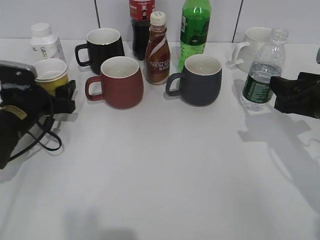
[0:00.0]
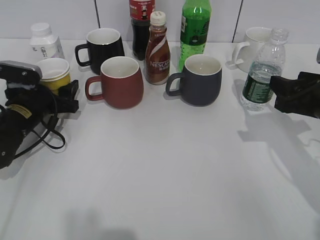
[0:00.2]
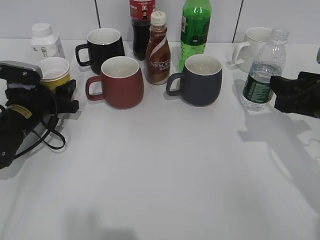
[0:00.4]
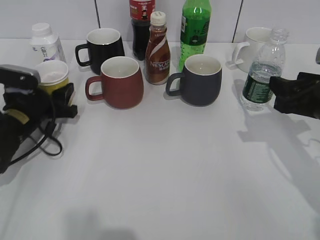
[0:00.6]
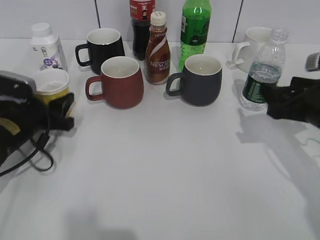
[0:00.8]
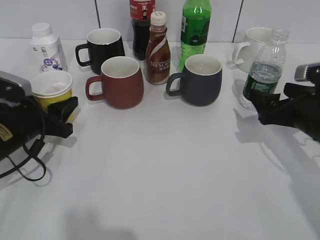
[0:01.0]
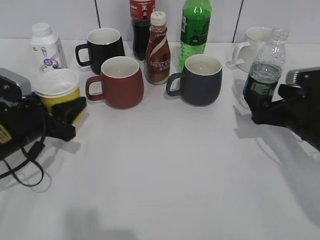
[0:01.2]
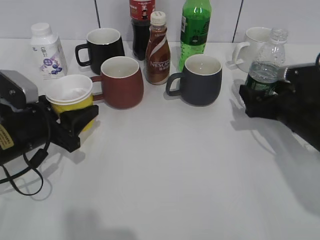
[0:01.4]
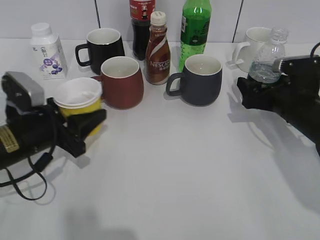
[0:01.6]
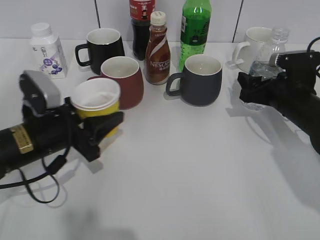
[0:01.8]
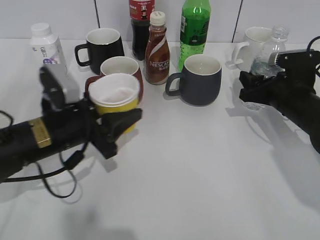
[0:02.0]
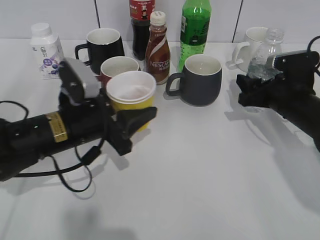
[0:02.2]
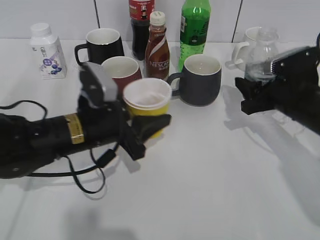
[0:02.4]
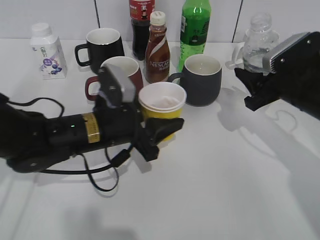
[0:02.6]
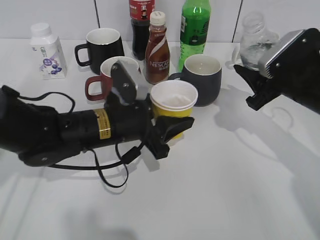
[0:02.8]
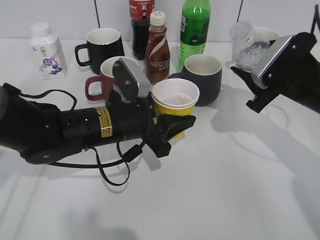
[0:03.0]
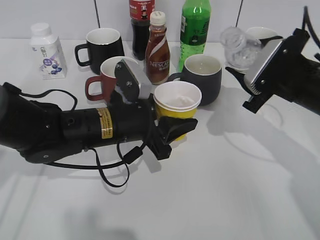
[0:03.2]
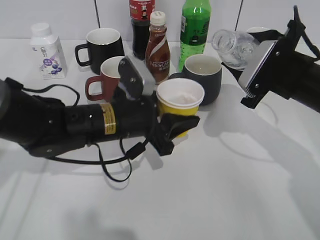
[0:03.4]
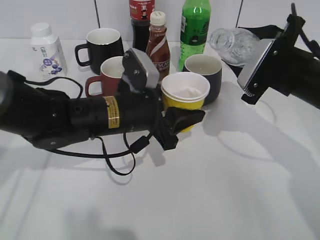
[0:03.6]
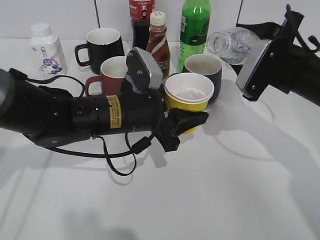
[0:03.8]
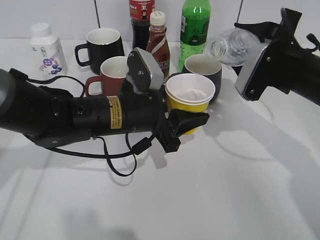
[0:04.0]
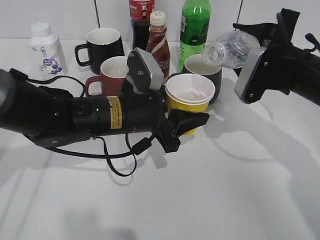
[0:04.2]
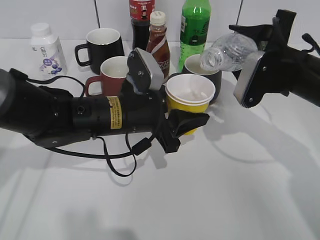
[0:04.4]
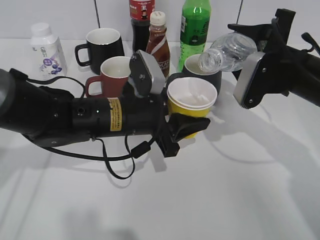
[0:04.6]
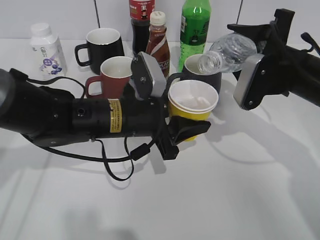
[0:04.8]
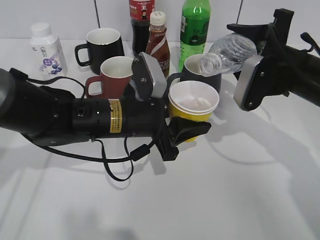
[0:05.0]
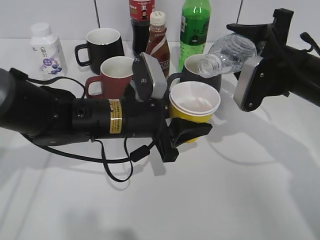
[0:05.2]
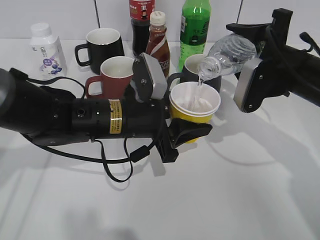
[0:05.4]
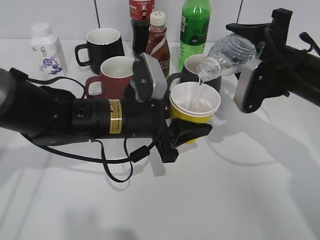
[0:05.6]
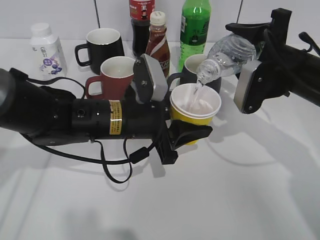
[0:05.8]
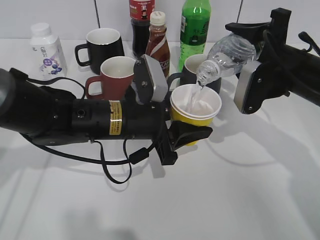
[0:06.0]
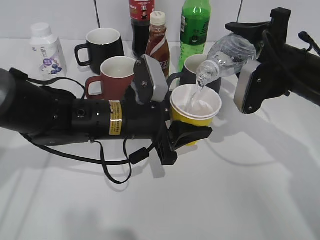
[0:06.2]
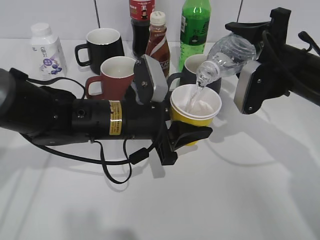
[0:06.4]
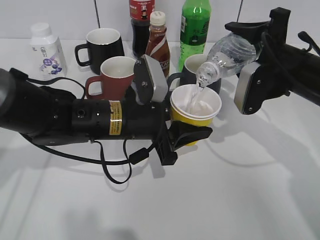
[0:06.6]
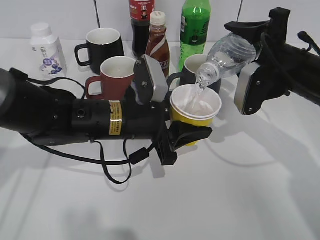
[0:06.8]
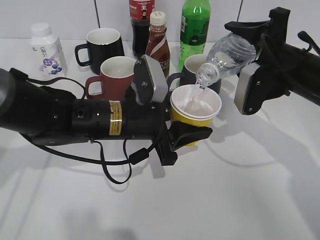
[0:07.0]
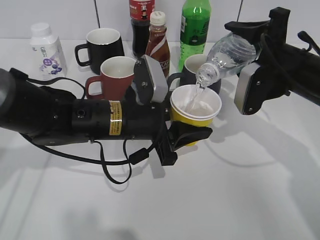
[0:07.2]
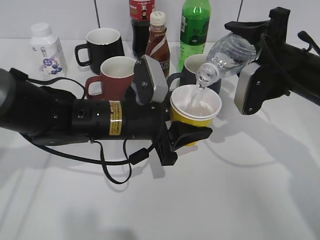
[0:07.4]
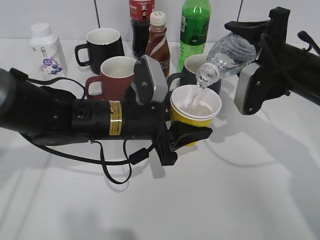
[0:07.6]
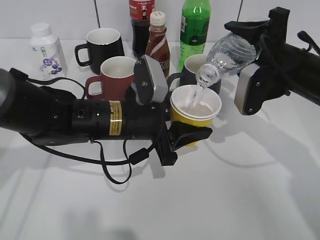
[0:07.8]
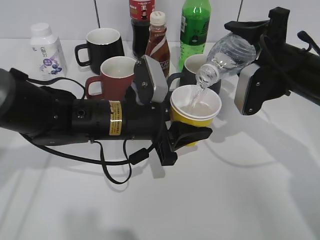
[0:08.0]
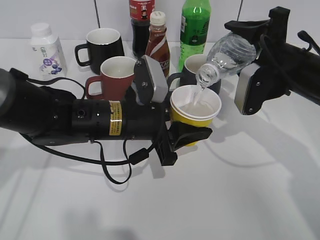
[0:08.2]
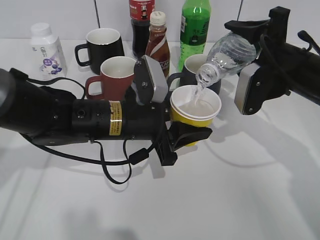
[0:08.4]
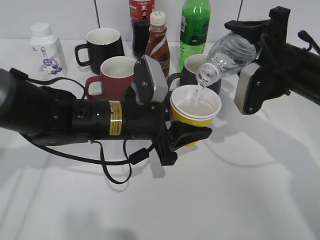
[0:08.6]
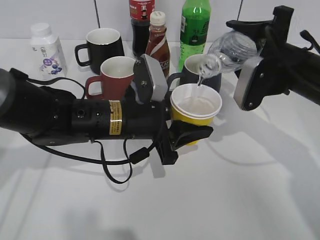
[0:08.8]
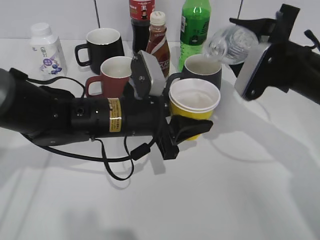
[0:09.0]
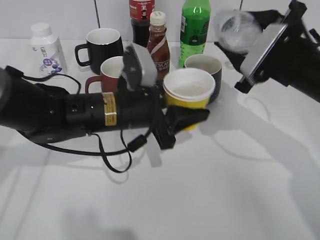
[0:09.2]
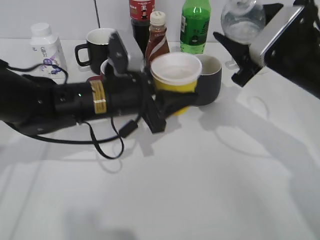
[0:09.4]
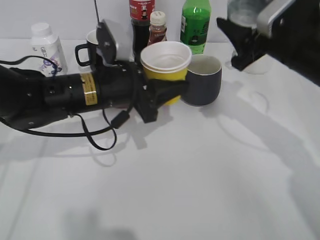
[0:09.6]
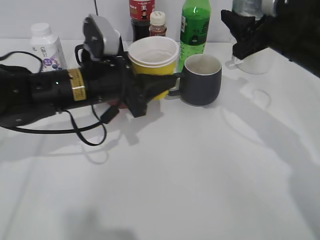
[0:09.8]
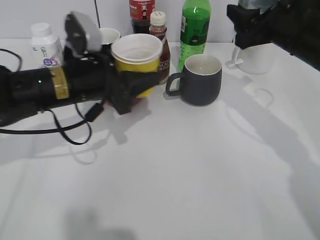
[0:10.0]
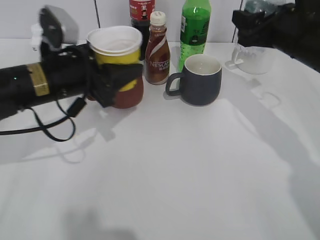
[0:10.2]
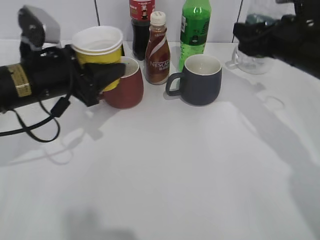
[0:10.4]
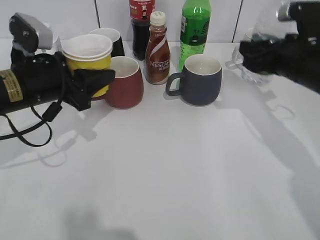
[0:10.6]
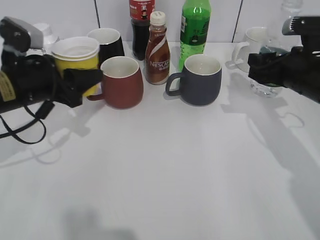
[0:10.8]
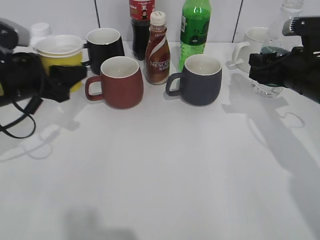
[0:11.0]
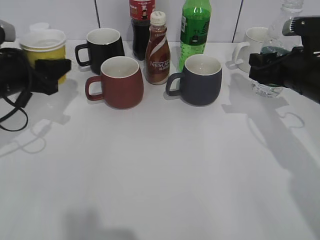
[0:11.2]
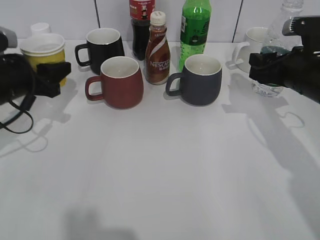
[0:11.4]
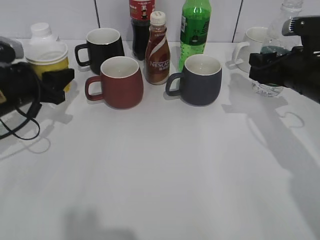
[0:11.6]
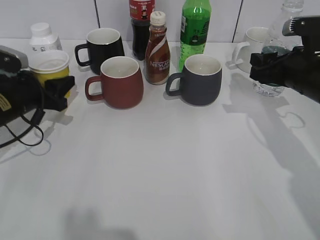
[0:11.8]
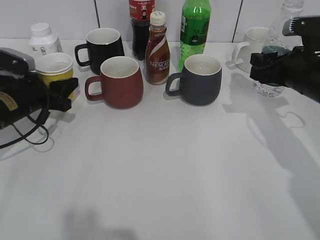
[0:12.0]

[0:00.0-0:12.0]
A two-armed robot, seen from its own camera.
Step, 0:00.6 to 0:02.0: Grasp the bottle with water with right gripper.
Step, 0:02.2 to 0:09.4: Pour the water from bottle to cup with right gripper.
0:00.0 to 0:01.6: The right gripper heads forward and downward, covering approximately 10 cm, and opens. Meanwhile the left gripper goes about 10 cm backward, and closes up.
0:01.6 to 0:03.0: The left gripper moves to the right, approximately 15 cm. The right gripper heads upward, covering approximately 5 cm, and closes.
0:04.4 to 0:06.0: There are only small adjustments of the grippers.
0:06.0 to 0:07.6: Both grippers stay put.
0:09.0 to 0:10.4: The left gripper shifts some 15 cm to the left.
0:10.4 to 0:12.0: The left gripper moves downward, to the left and forward, roughly 15 cm.

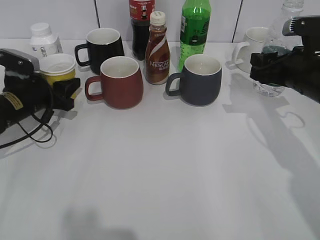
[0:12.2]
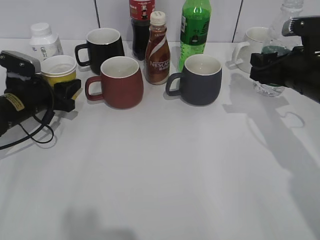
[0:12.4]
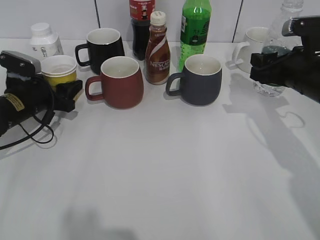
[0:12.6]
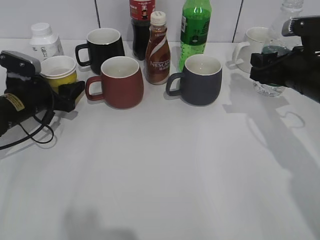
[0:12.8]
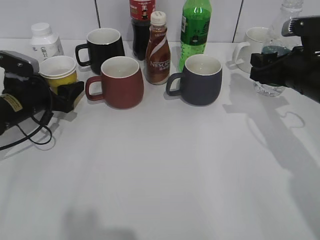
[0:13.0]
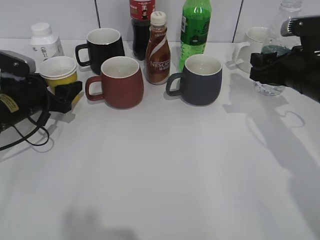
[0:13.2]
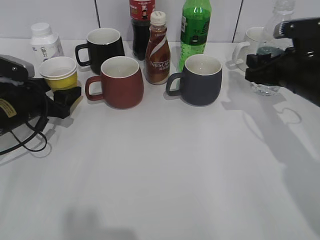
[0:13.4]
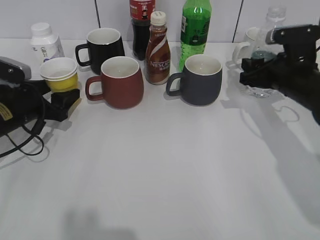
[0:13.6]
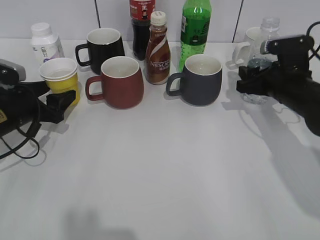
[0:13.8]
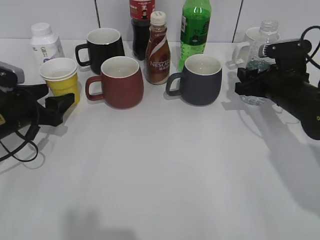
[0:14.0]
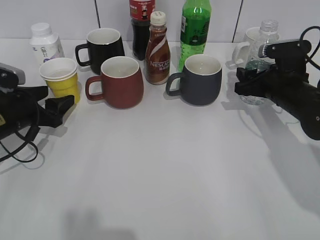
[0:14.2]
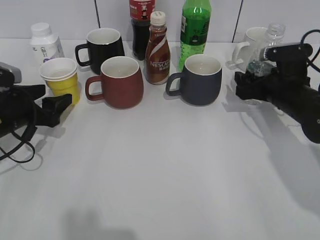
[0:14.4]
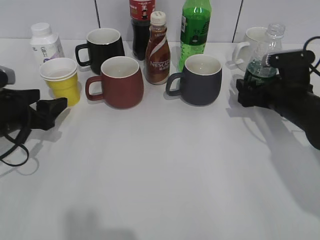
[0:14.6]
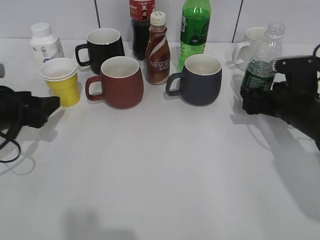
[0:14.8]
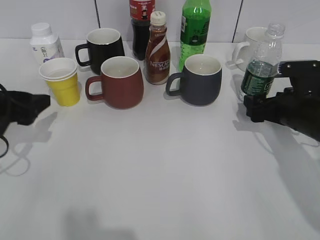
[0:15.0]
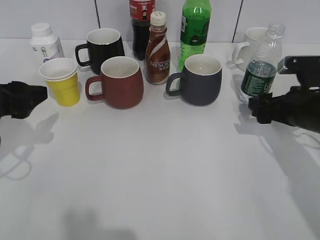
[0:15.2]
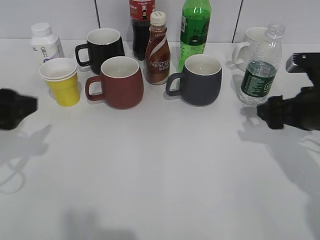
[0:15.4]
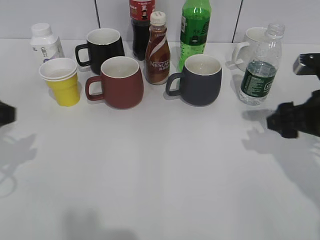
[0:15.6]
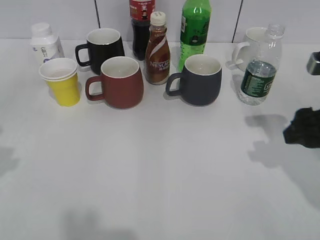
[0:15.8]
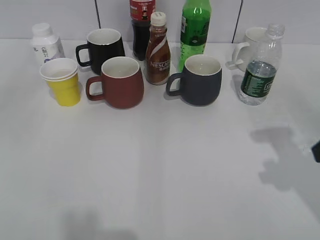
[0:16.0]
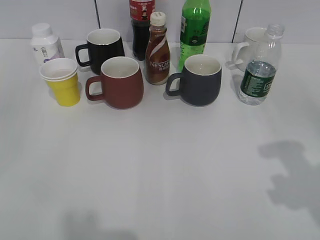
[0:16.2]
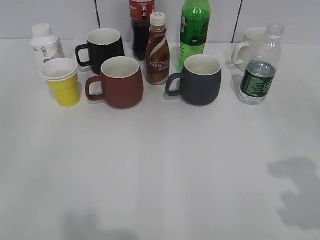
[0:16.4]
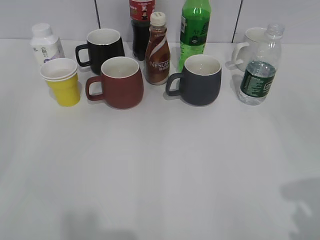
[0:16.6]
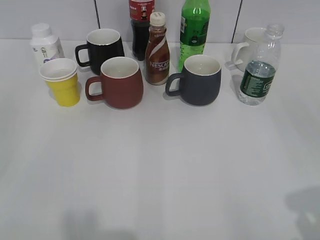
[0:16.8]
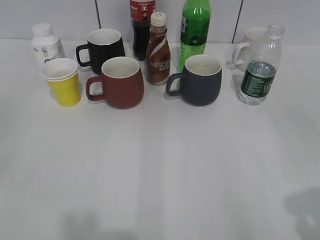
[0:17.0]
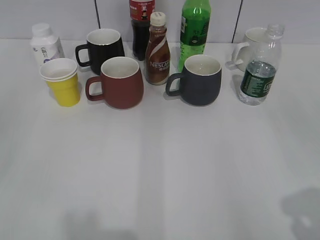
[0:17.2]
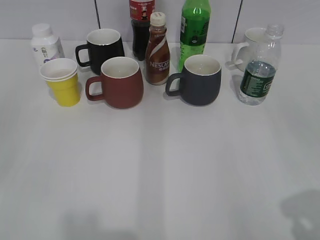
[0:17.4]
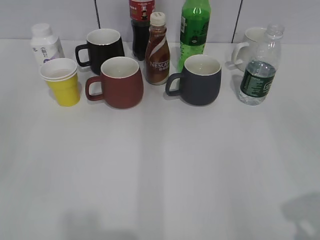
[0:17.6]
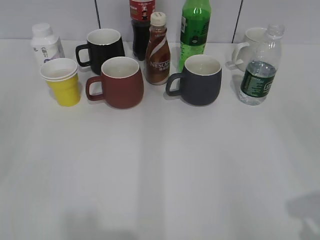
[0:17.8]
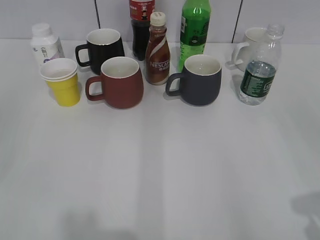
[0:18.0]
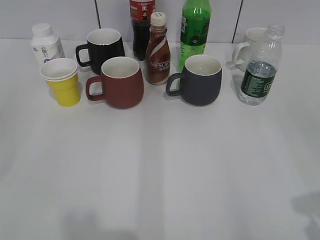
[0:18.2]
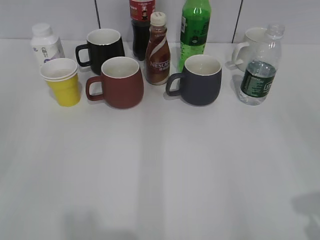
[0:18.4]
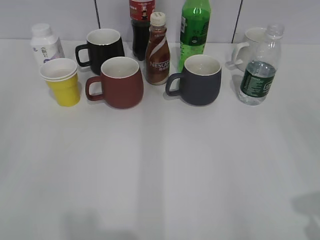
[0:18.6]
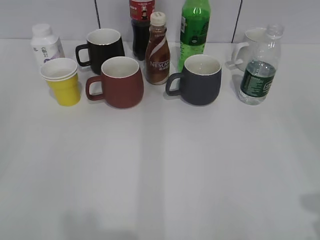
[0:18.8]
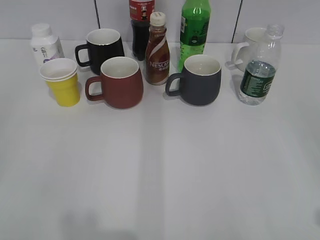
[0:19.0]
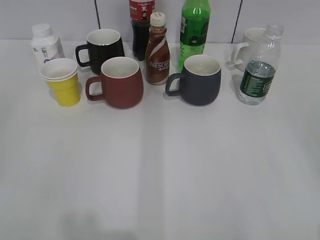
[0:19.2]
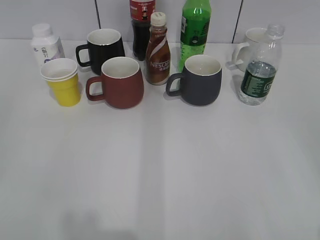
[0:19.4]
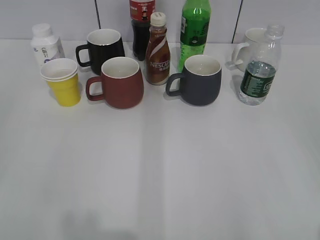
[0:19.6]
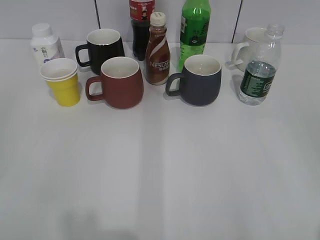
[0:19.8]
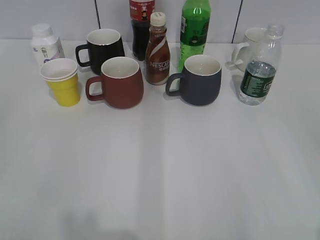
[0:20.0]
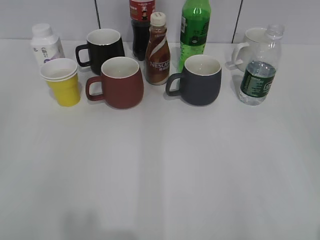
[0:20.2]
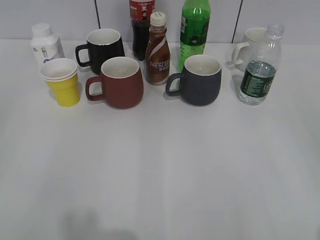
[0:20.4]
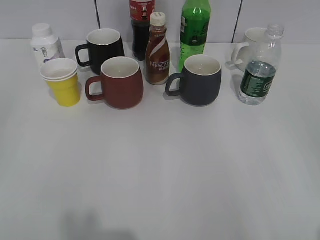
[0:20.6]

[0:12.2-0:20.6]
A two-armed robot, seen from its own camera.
Step, 0:13.2 to 0:14.4: Place the water bottle on the table with right gripper.
0:12.2 to 0:13.6: The left gripper opens up.
0:13.6 to 0:15.0: The right gripper ends up roughly 5 cm from where it was, and opens up, while the left gripper travels backward and upward by approximately 10 cm.
0:15.0 to 0:16.4: The grippers both shift backward and upward by some 25 cm.
0:19.2 to 0:20.6: Neither gripper changes place.

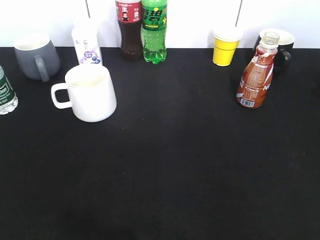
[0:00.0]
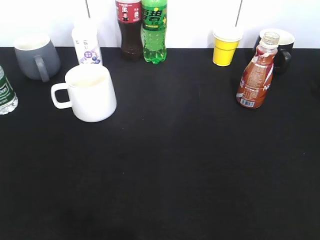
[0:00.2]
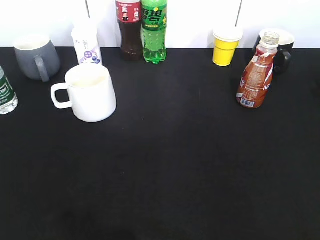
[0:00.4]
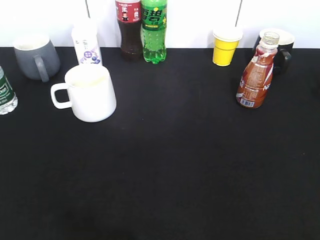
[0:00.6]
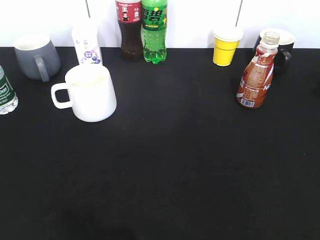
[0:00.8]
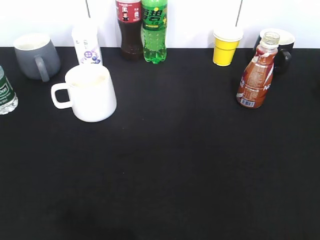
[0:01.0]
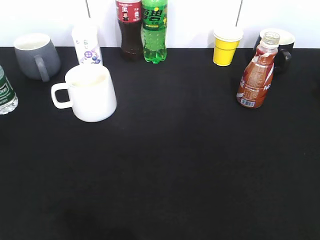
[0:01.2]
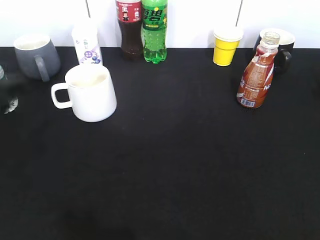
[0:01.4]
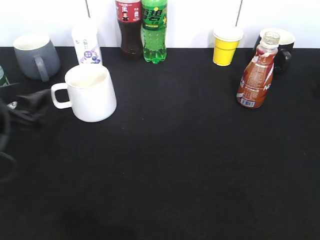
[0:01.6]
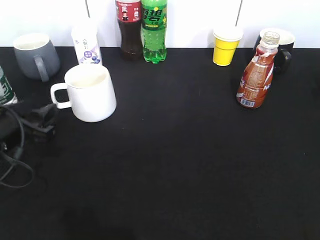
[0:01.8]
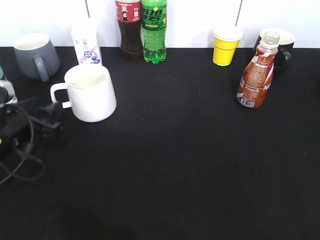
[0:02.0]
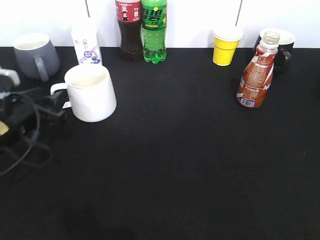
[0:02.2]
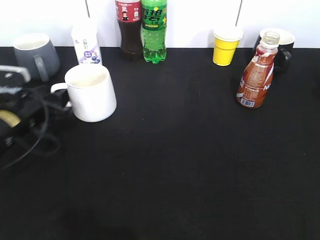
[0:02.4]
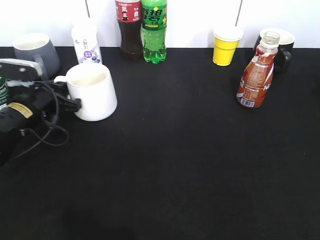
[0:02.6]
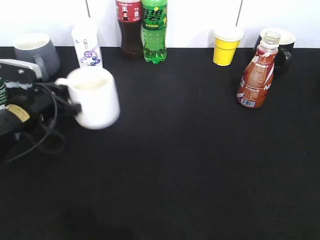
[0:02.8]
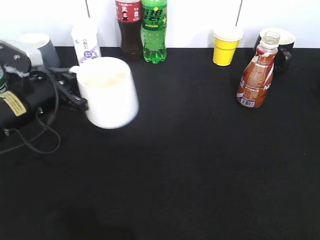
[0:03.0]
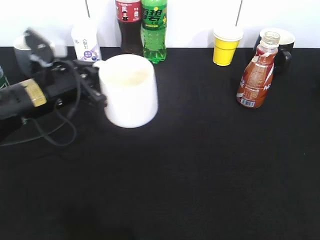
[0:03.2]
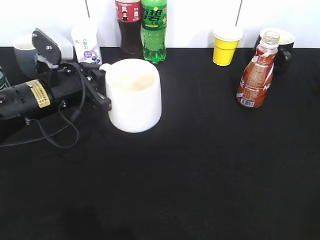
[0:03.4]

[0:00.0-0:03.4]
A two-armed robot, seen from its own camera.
Step, 0:00.8 to 0:02.6: Grasp the white cup with left gripper.
Step, 0:02.8 to 0:03.4: Lift the white cup with left gripper.
0:00.0 to 0:01.6: The left gripper heads forward and downward, covering about 25 cm, and opens.
0:01.6 to 0:03.4: The left gripper heads forward and to the right, covering about 10 cm, and closes its fingers.
